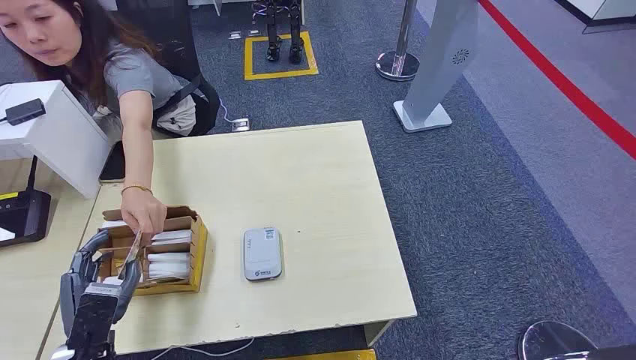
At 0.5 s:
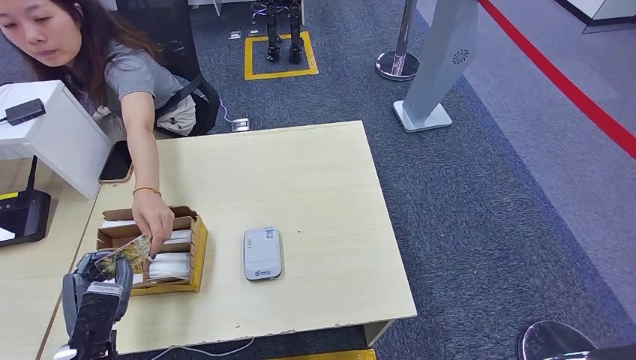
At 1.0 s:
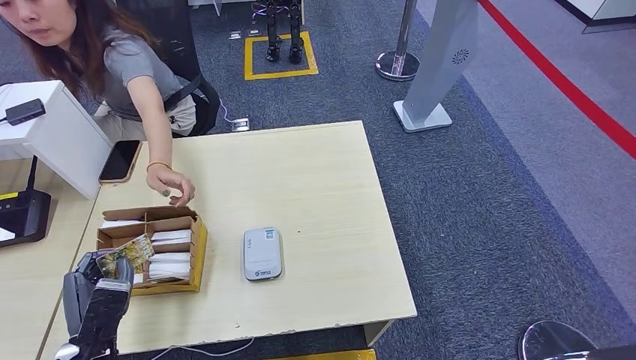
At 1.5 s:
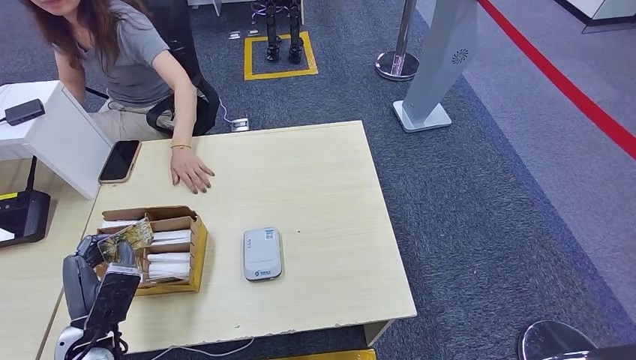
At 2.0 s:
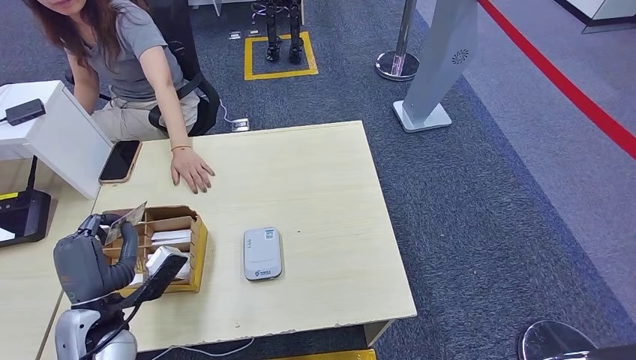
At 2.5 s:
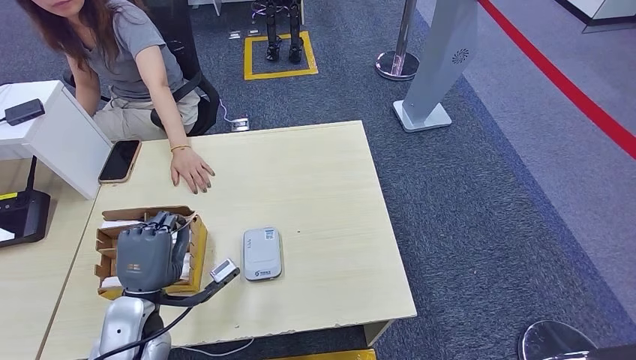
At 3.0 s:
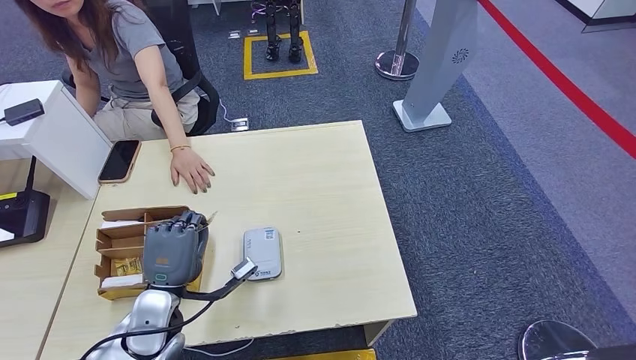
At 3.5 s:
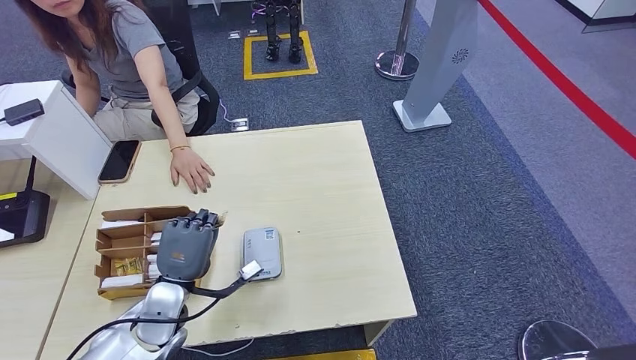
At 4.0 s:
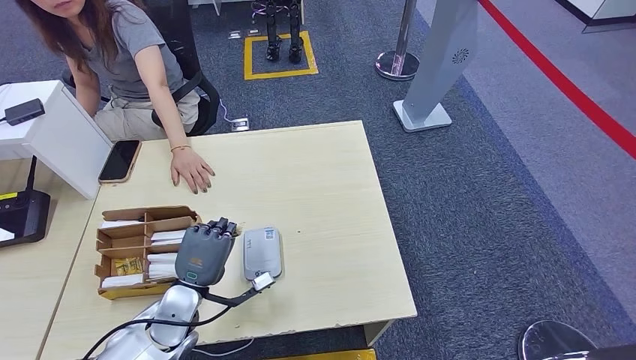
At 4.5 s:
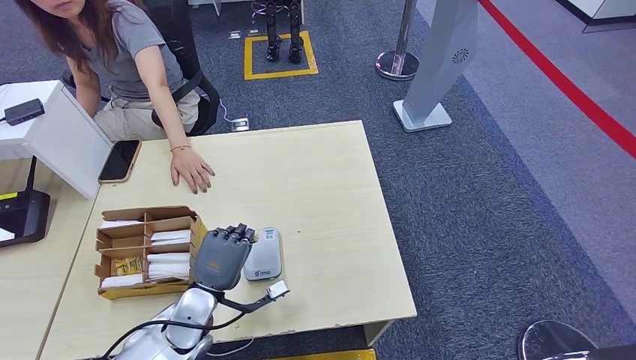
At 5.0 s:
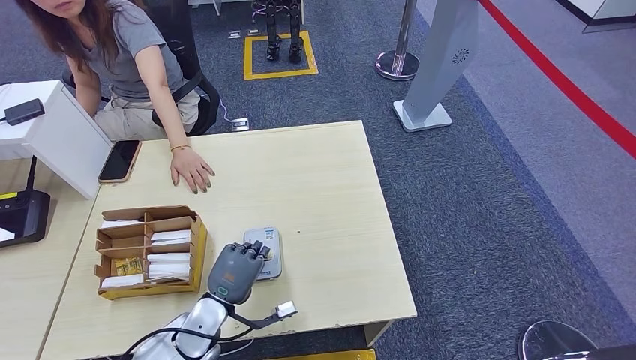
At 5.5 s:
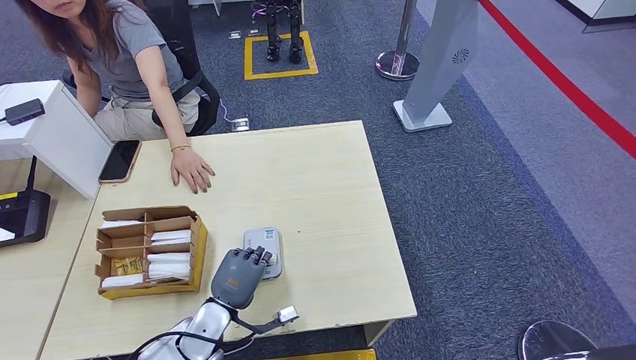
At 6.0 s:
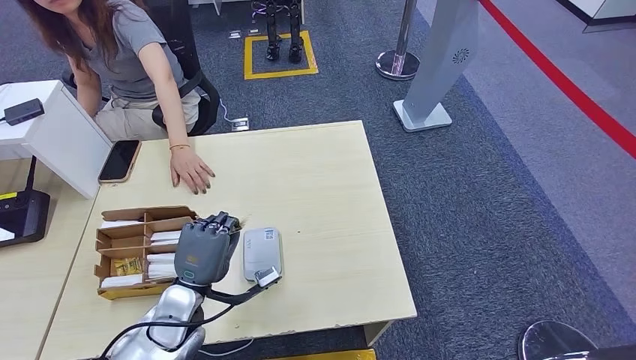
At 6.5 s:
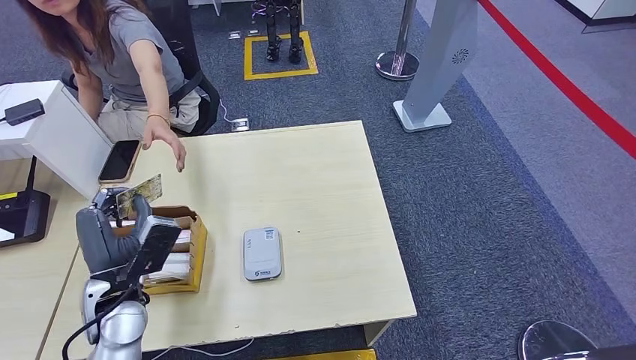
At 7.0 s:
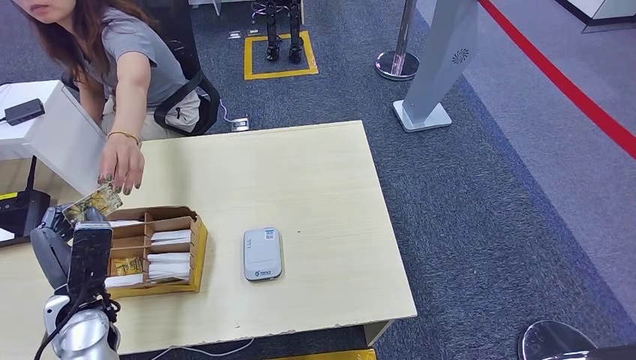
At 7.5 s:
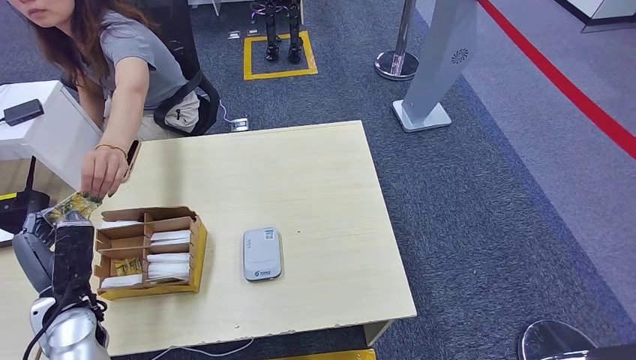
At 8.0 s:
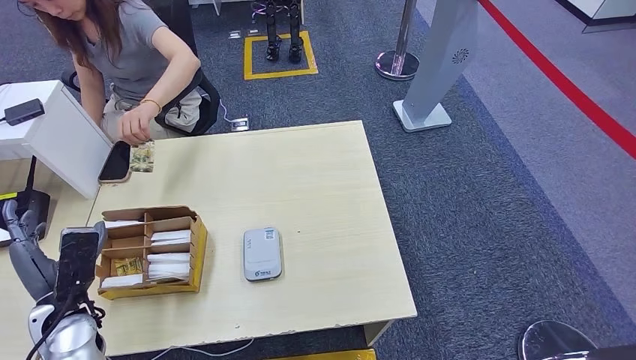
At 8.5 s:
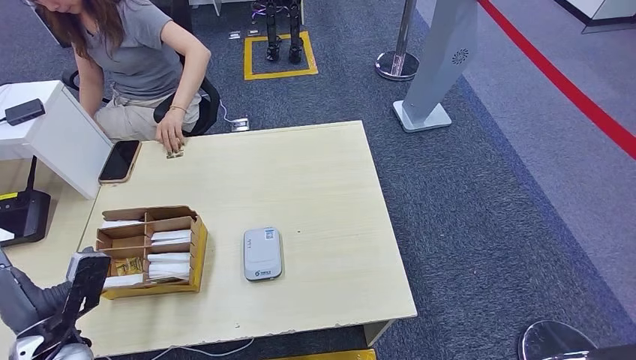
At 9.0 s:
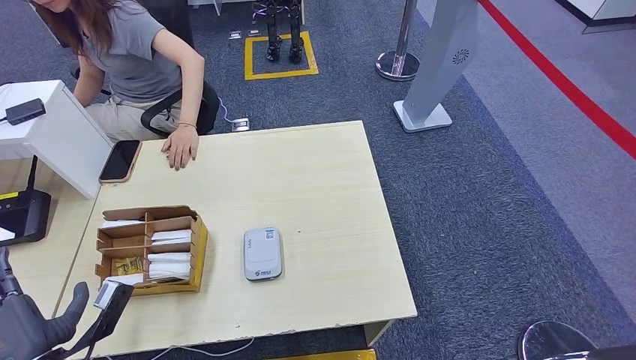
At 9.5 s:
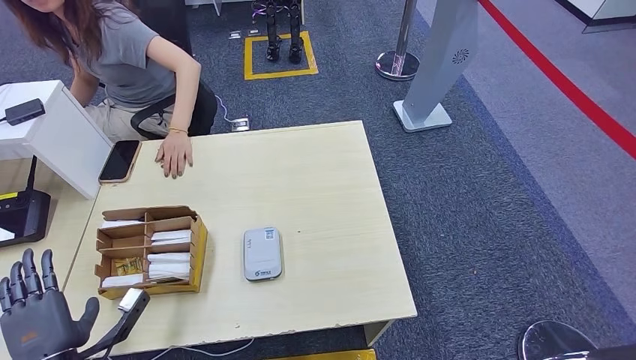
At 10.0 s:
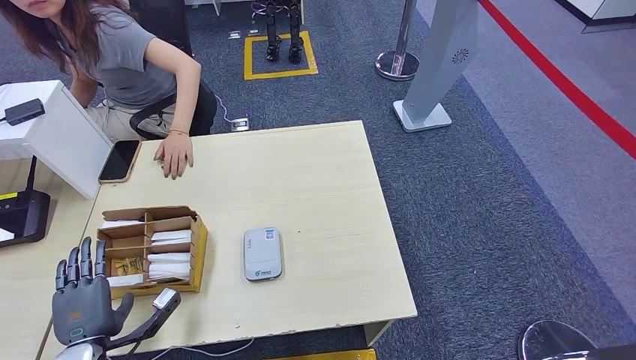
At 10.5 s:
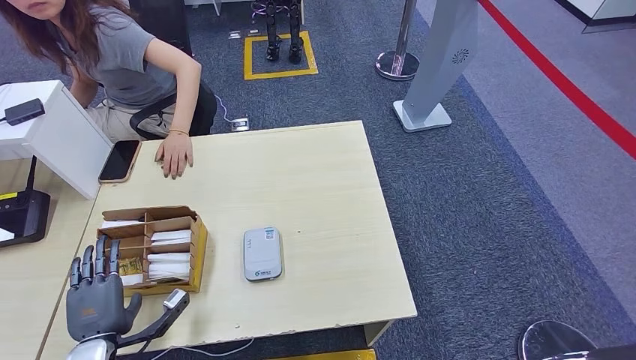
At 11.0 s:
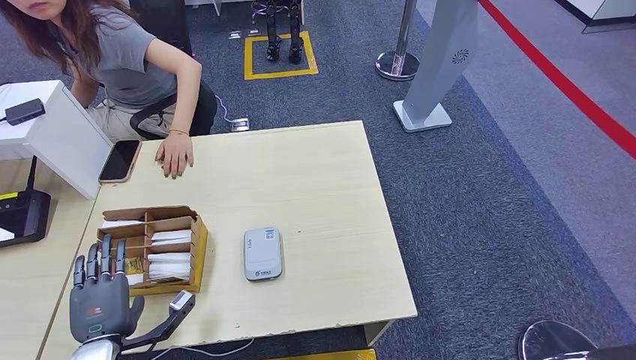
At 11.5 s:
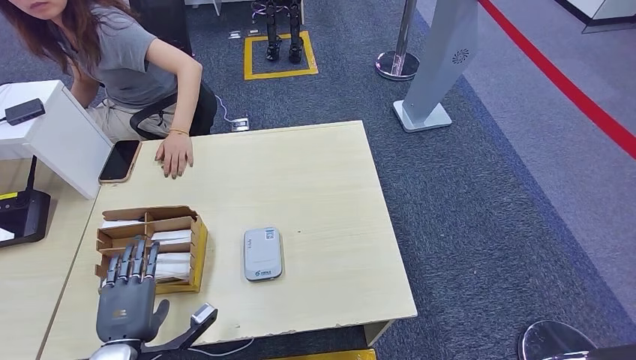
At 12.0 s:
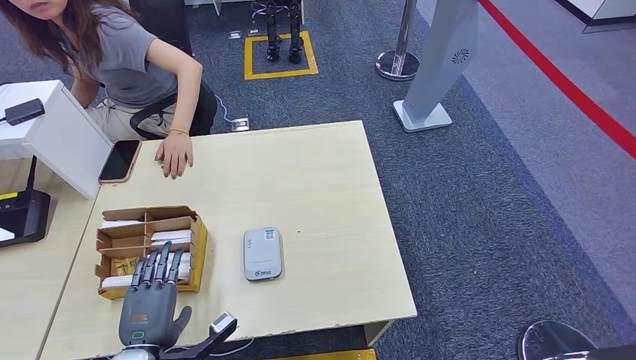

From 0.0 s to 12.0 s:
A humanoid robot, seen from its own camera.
Step, from 0.0 s to 1.5 s: Take the ID card from the person's hand.
Step, from 2.0 s to 5.5 s: Place the ID card on the card reader.
Step, from 6.5 s to 8.0 s: Hand the ID card to the person.
From 2.0 s to 4.0 s: The left hand goes approximately 10 cm to the right and downward.
From 4.0 s to 6.0 s: The hands make only small movements.
From 6.0 s to 8.0 s: The left hand heads to the left, covering approximately 15 cm.
From 8.0 s to 10.0 s: The left hand is displaced backward and downward by approximately 10 cm.
From 10.0 s to 12.0 s: The left hand moves to the right, approximately 10 cm.

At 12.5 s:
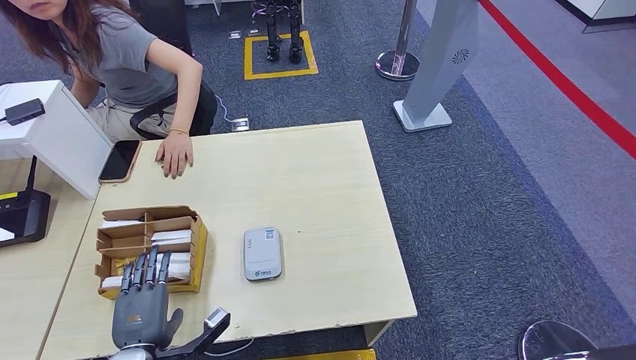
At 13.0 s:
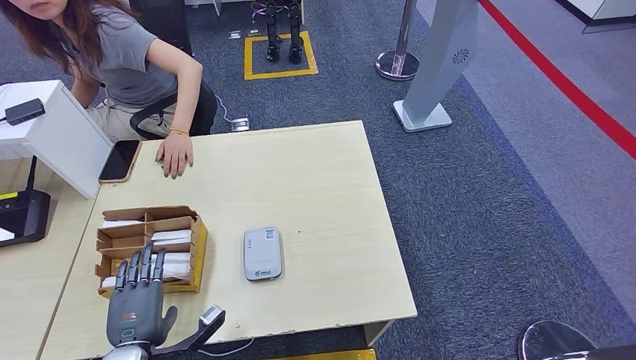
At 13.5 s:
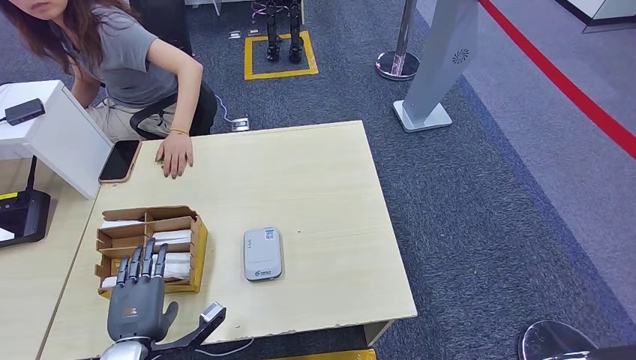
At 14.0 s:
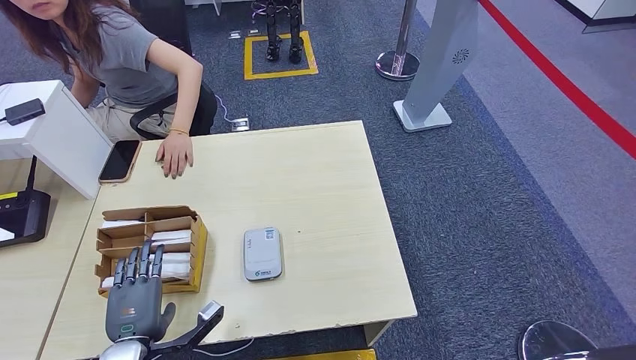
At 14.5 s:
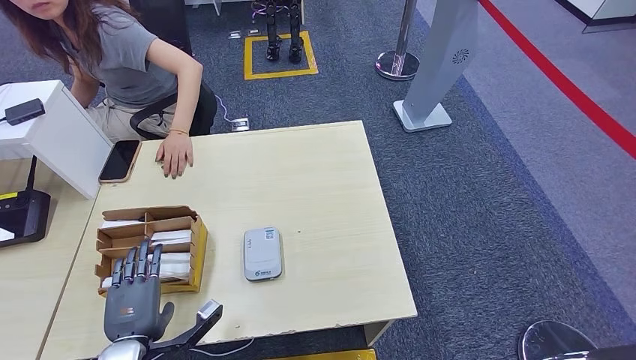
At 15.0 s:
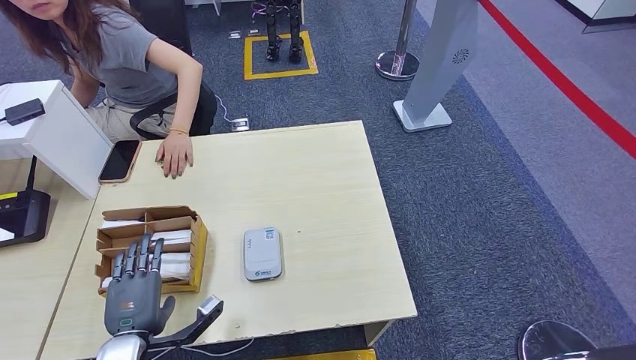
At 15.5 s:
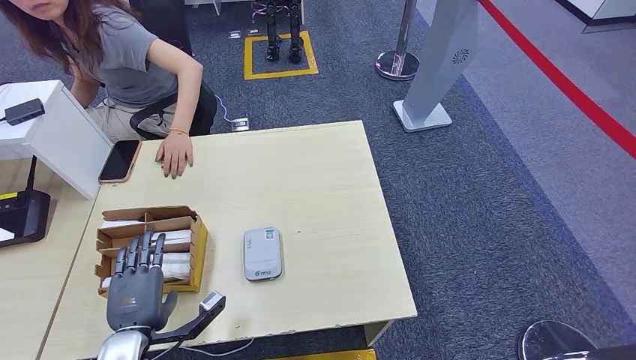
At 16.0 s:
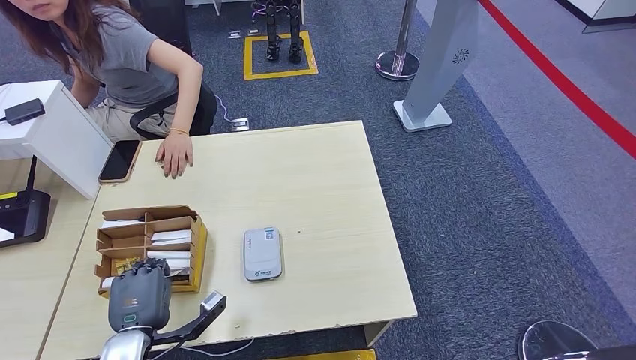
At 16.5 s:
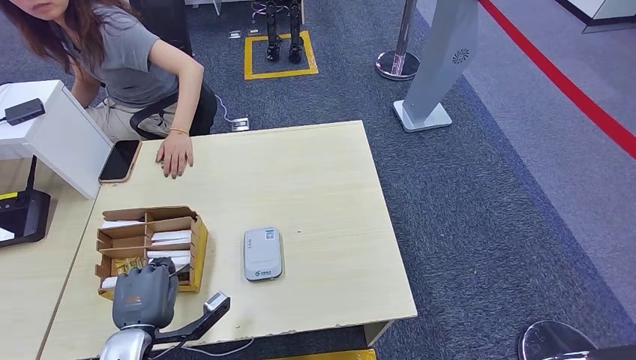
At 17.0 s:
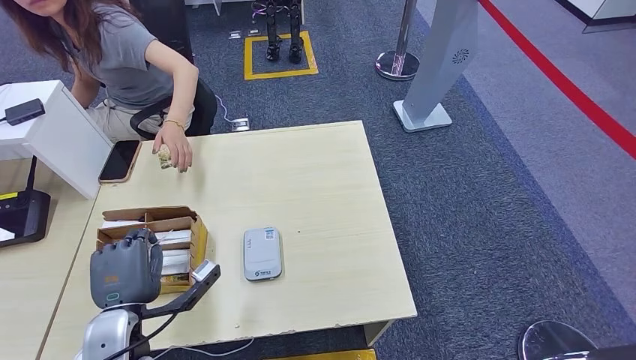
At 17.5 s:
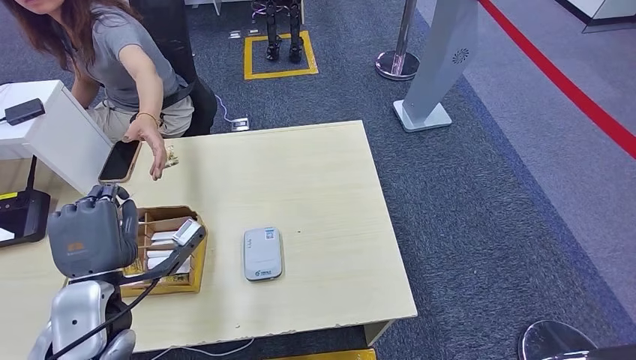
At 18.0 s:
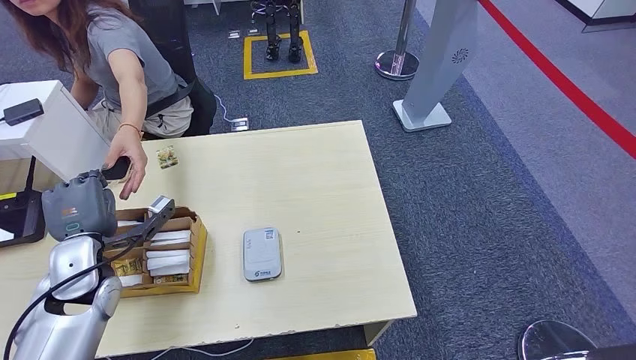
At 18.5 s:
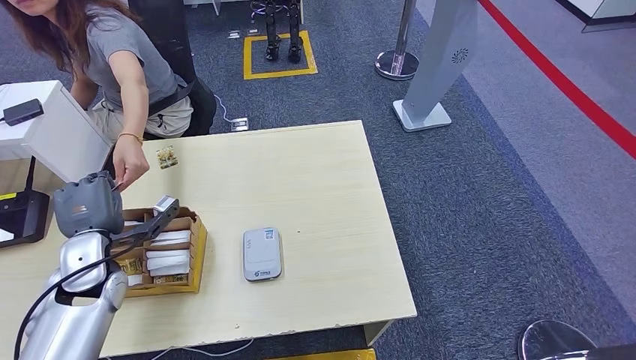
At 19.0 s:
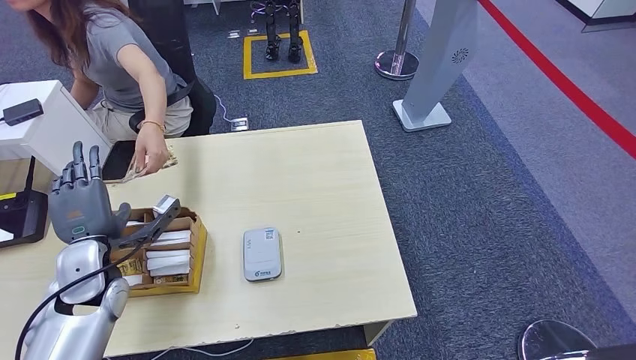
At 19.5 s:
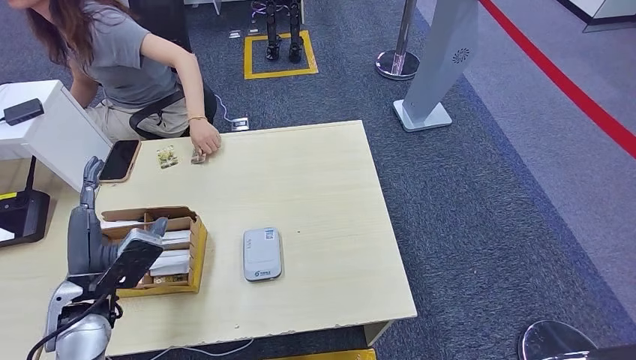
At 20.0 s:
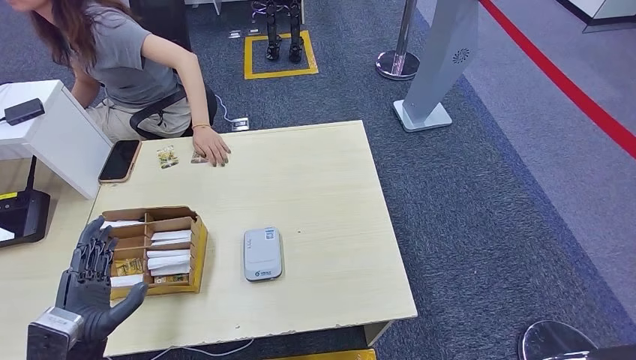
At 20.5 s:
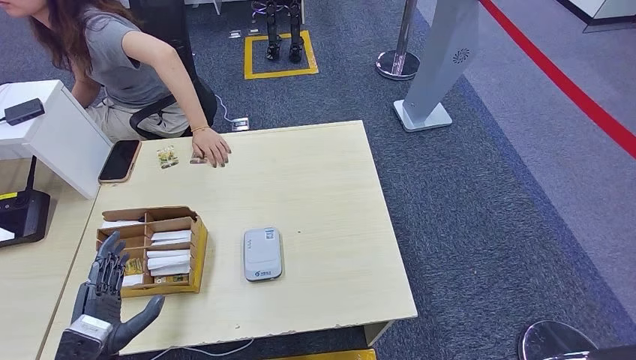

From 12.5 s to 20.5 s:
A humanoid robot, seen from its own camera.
Step, from 12.5 s to 16.5 s: Pick up the room key from the key card box.
Step, from 17.5 s to 20.5 s: Hand the room key to the person.
From 12.5 s to 16.5 s: There are only small adjustments of the hands.
From 16.5 s to 18.5 s: The left hand moves forward, upward and to the left, approximately 15 cm.
From 18.5 s to 20.5 s: The left hand travels backward by some 15 cm.
